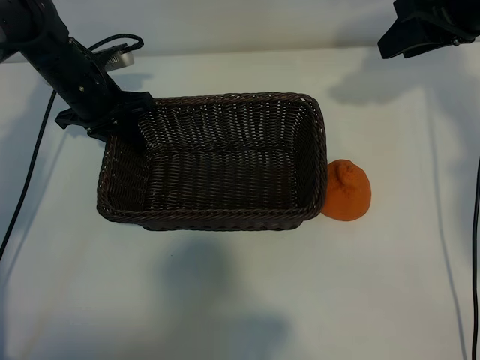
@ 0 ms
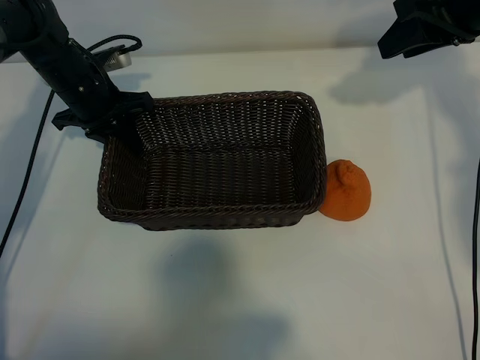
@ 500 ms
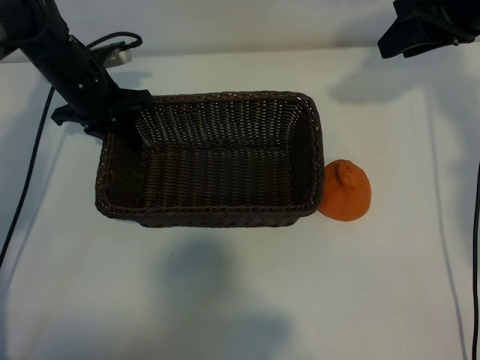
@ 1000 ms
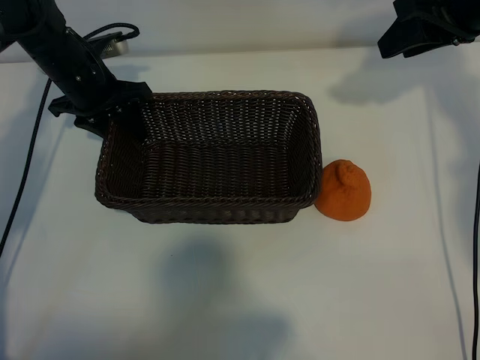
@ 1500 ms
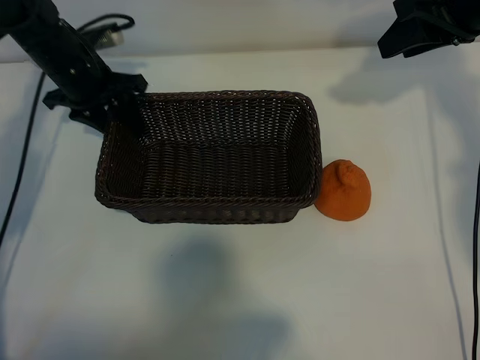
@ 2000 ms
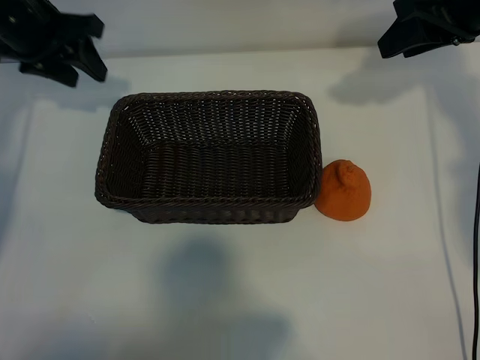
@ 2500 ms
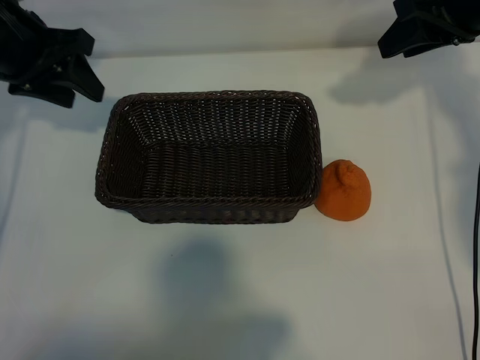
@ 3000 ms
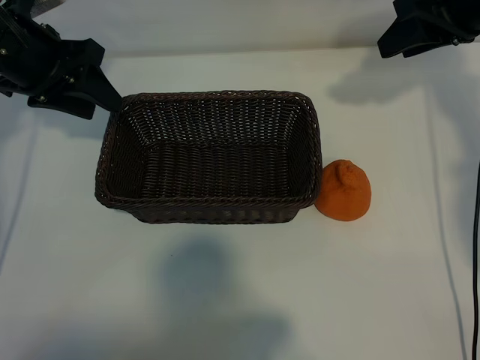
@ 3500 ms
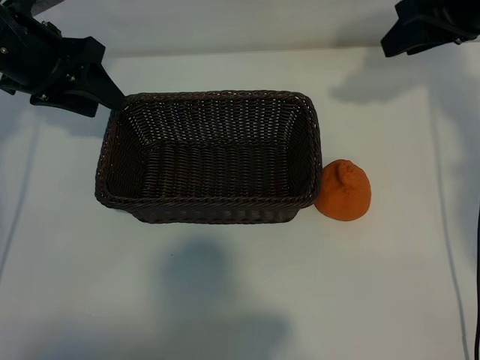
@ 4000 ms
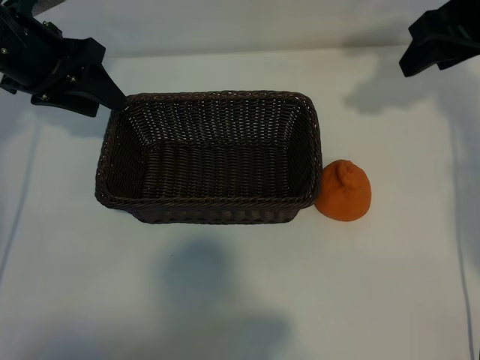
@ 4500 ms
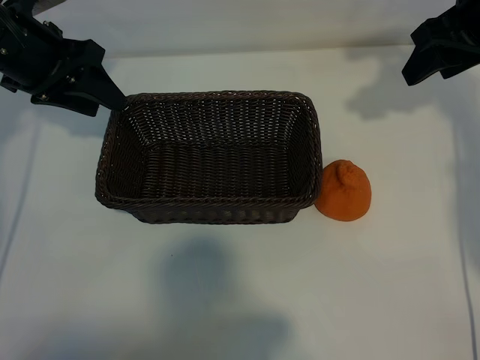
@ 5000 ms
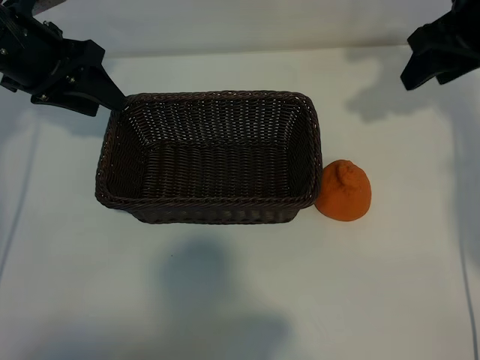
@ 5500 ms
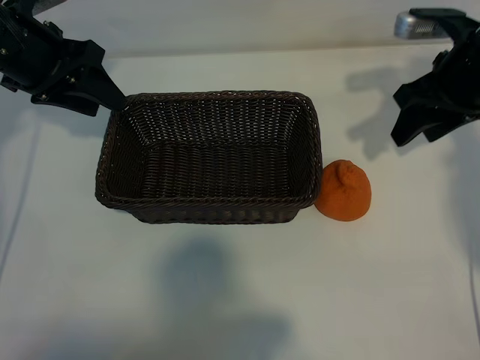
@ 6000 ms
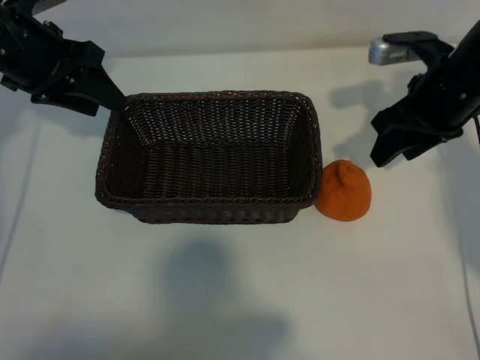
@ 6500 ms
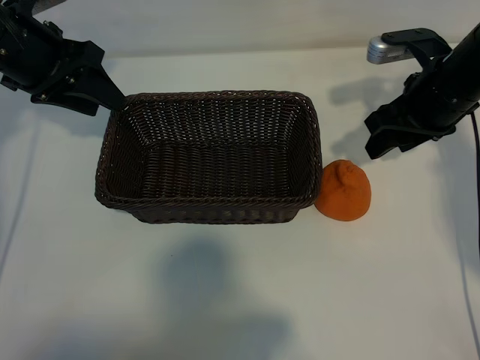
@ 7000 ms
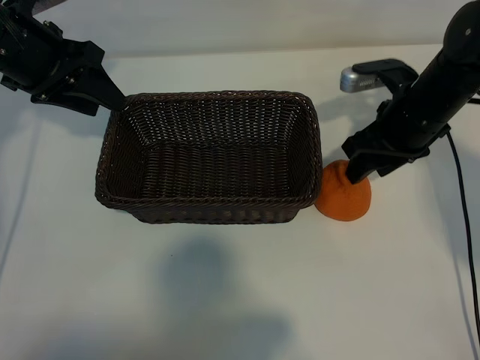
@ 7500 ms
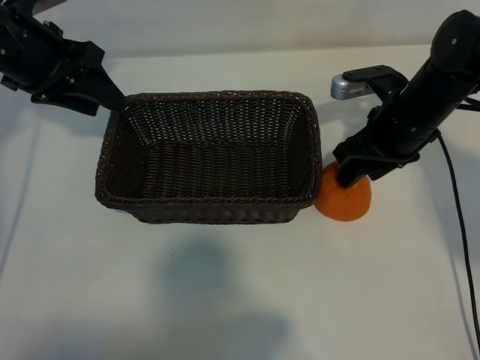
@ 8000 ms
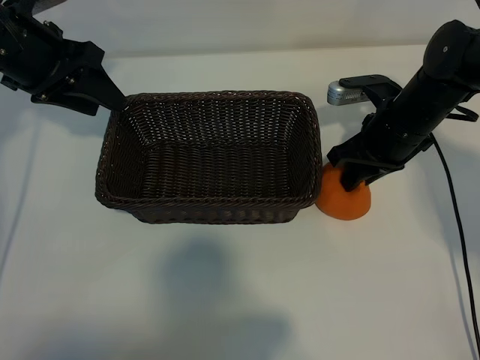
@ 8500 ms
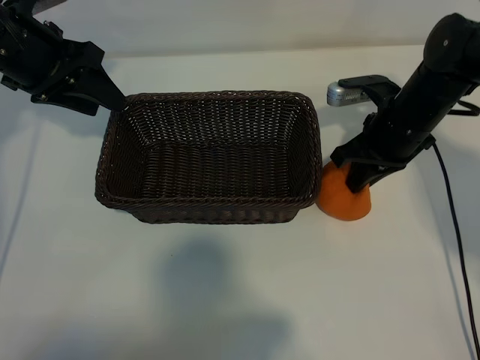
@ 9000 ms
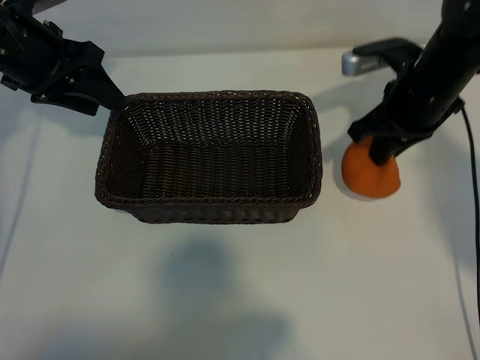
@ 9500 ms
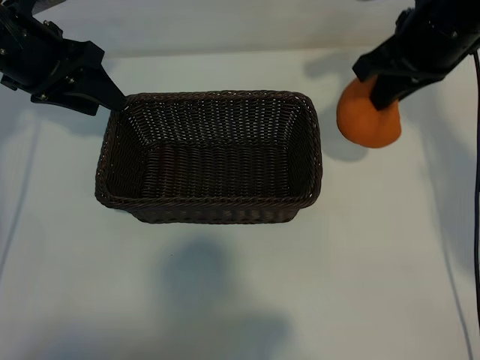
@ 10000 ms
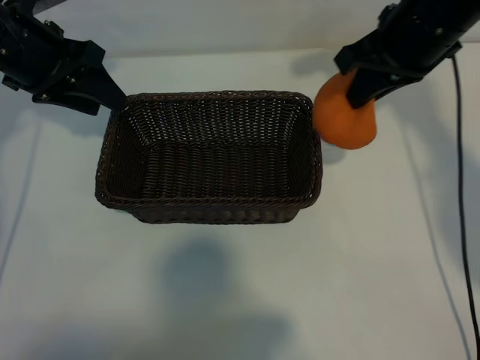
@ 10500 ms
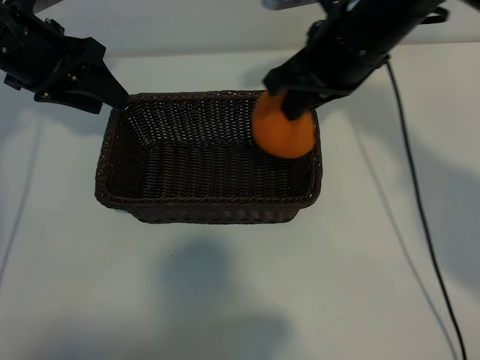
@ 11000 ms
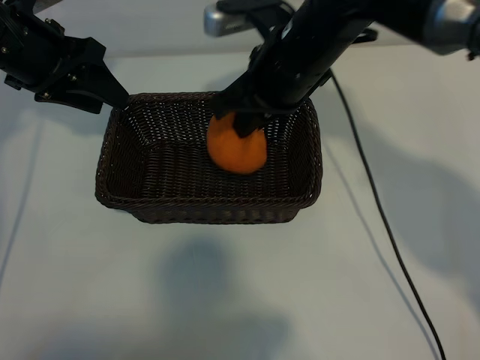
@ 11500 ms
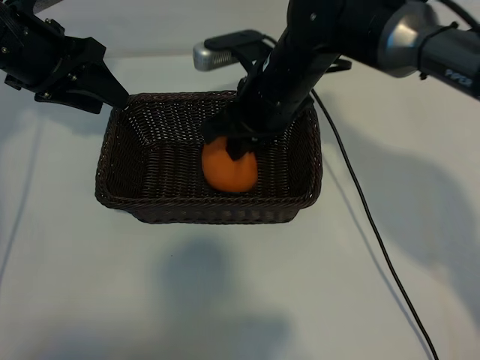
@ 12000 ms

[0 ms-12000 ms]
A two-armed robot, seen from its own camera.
Task of the whole recording: pick up the orange and put it into the basket.
Step, 1500 ms to 8500 ms: Grasp the orange with right gripper.
